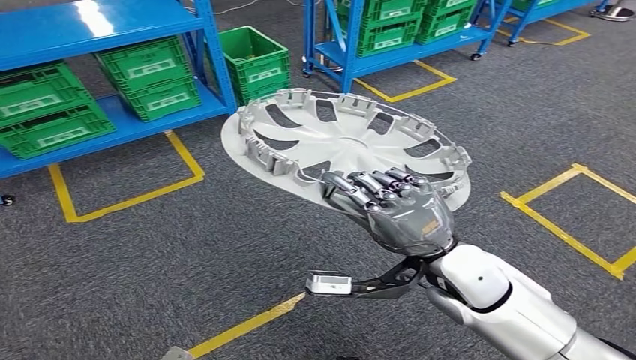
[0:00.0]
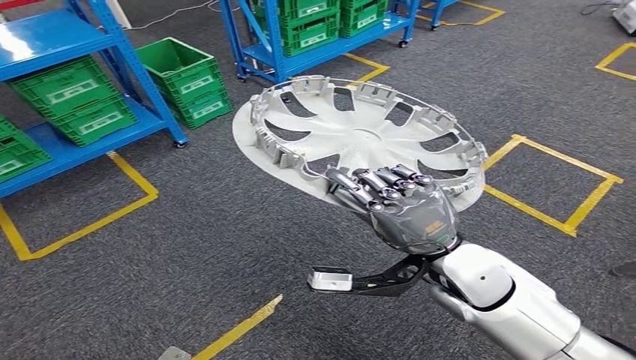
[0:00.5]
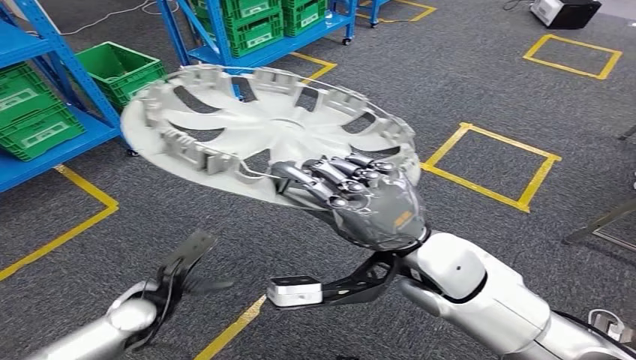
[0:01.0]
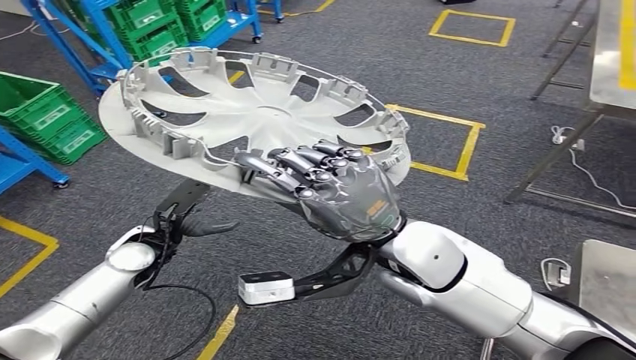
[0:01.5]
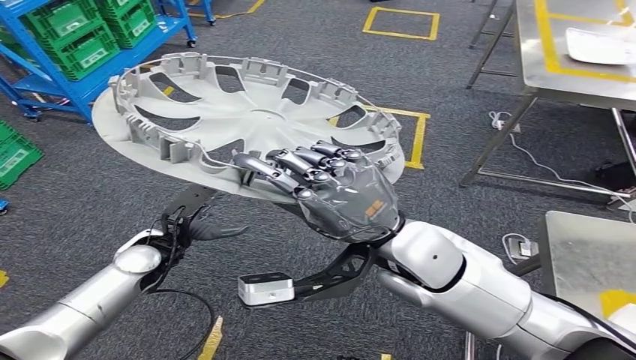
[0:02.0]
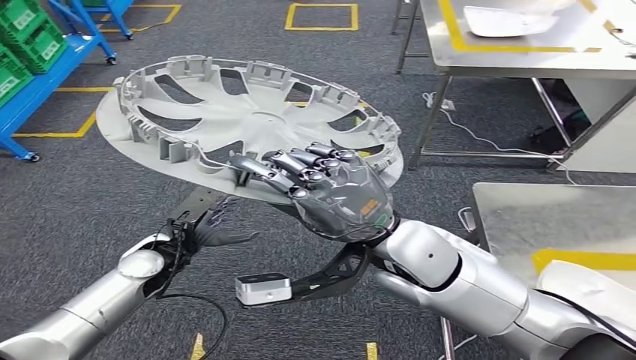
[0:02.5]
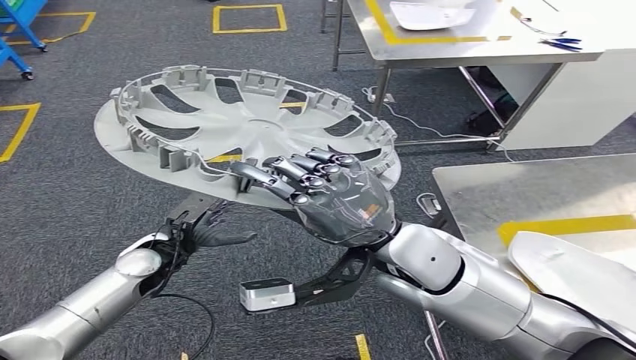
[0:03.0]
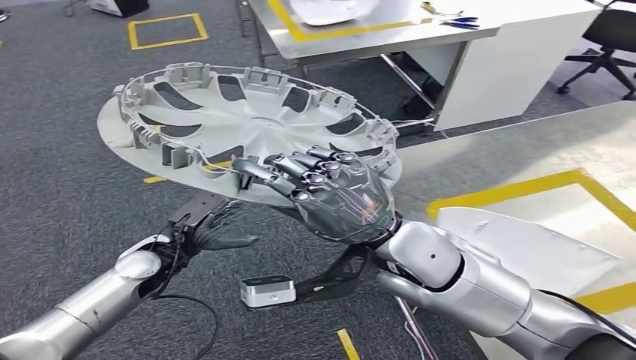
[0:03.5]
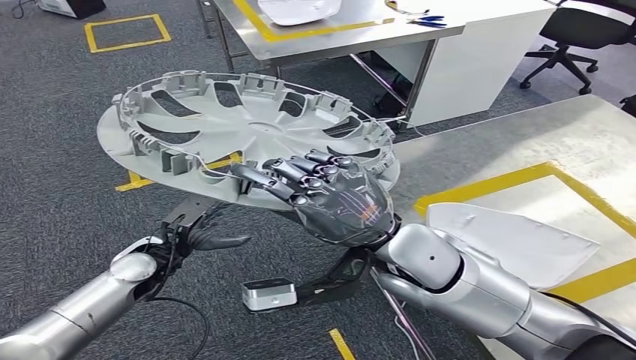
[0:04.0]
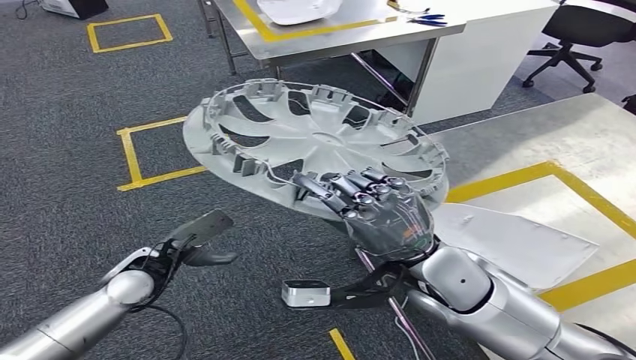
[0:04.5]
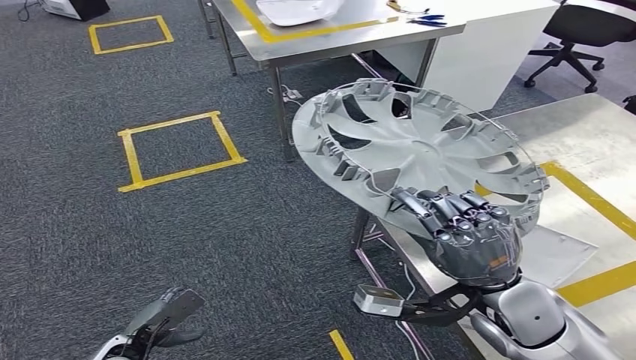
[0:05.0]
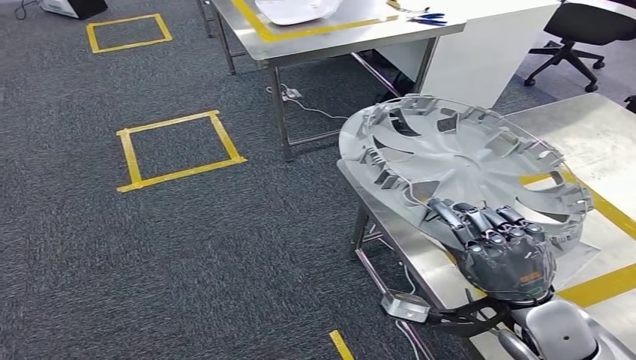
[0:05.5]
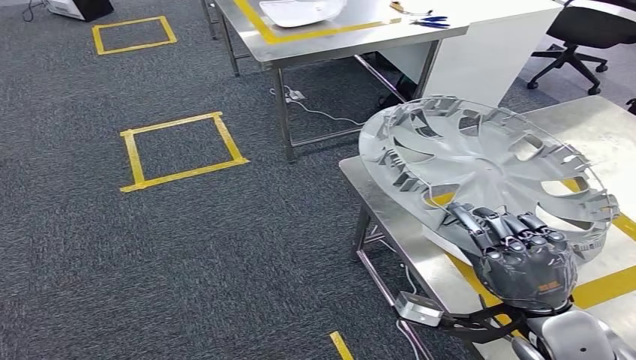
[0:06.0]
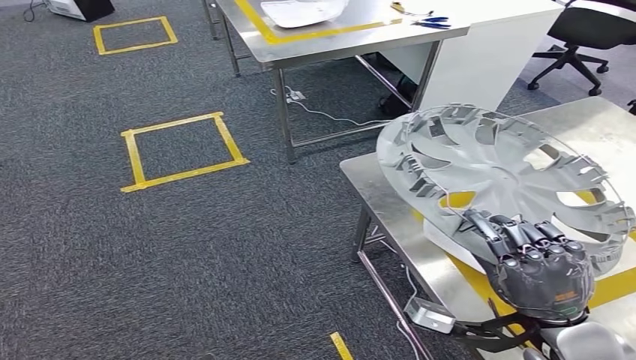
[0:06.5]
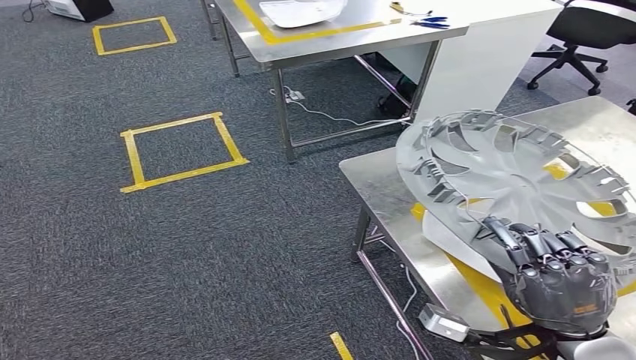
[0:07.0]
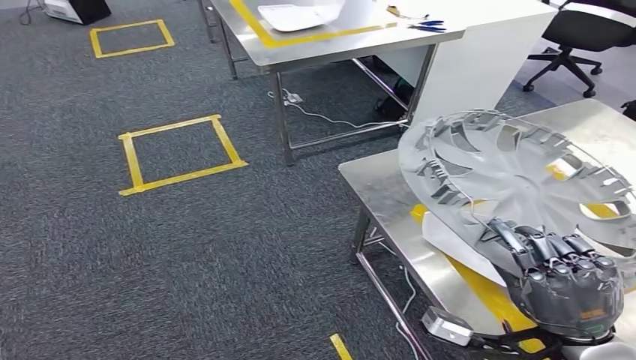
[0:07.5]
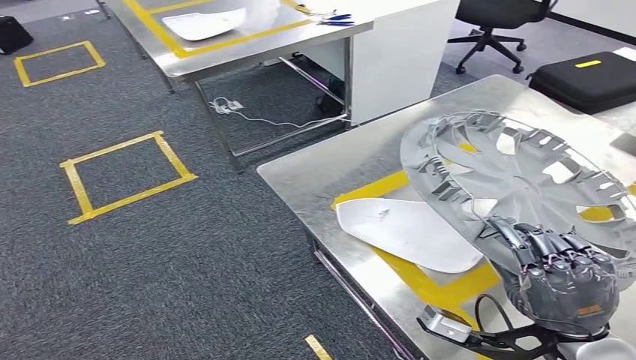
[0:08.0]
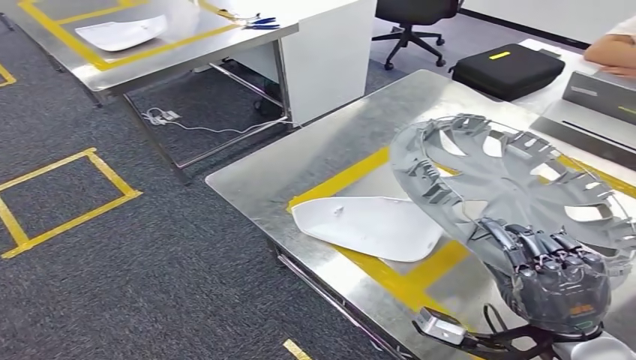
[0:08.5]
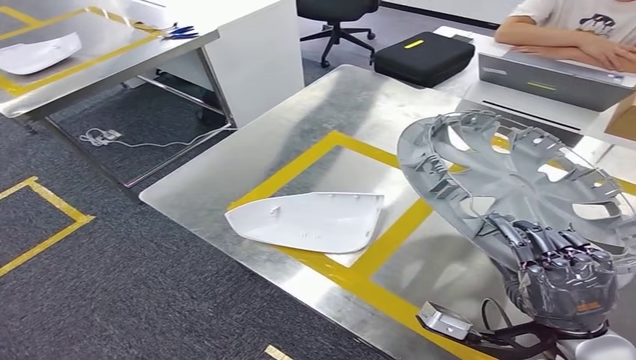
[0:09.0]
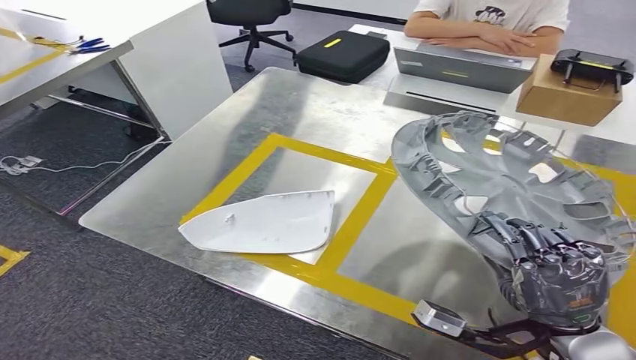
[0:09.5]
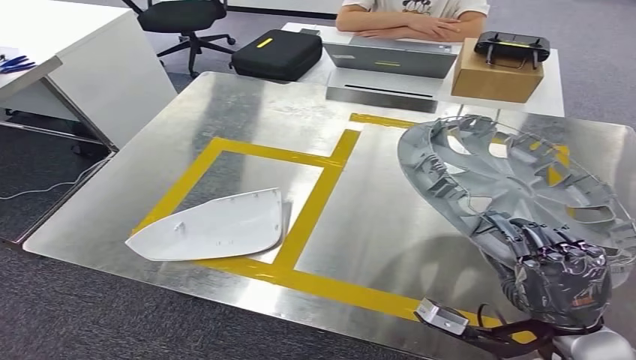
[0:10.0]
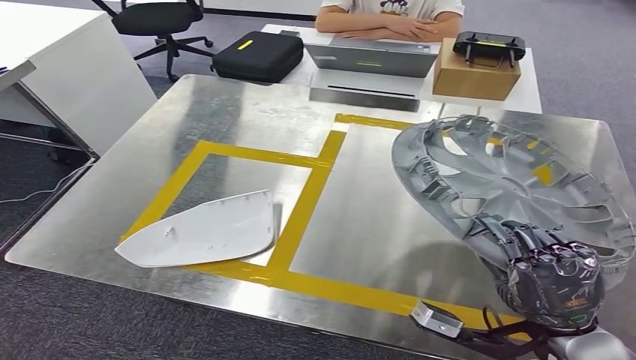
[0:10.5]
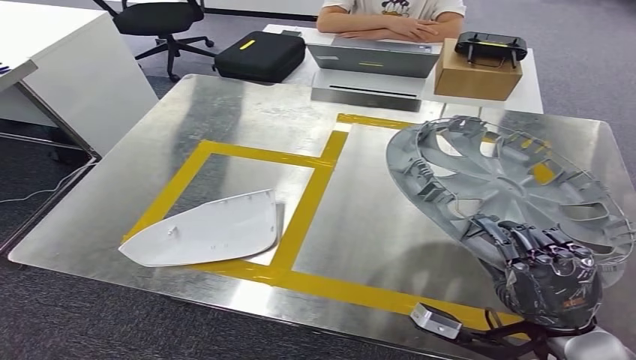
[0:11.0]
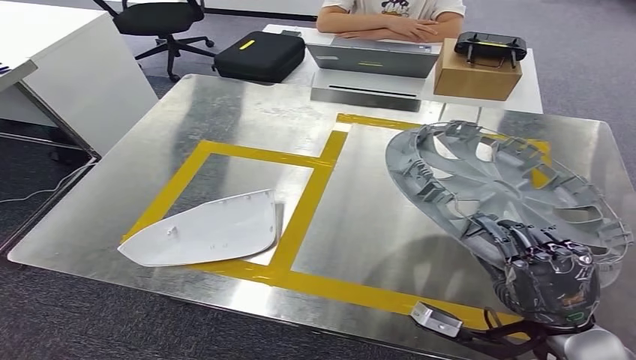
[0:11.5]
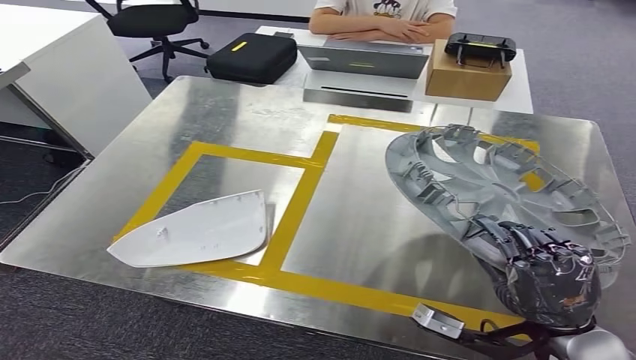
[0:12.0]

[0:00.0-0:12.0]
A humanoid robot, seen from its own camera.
Step, 0:00.0 to 0:06.0: Move the small component to the workbench.

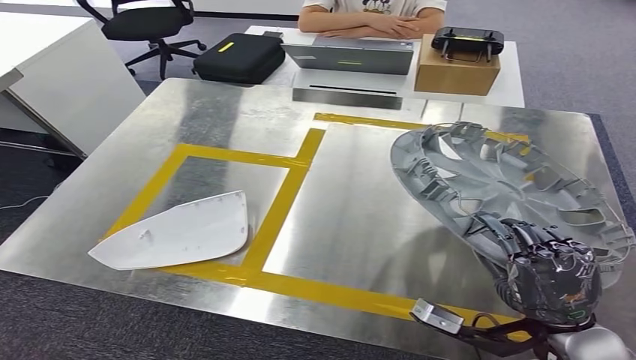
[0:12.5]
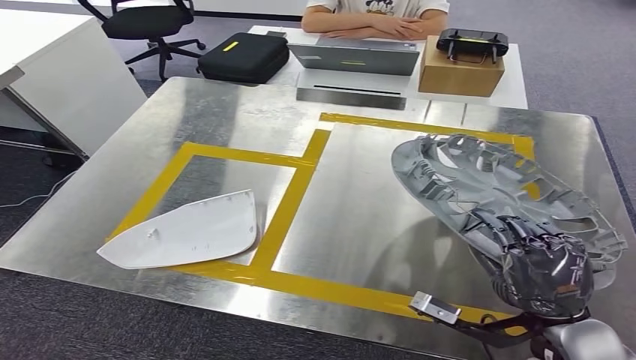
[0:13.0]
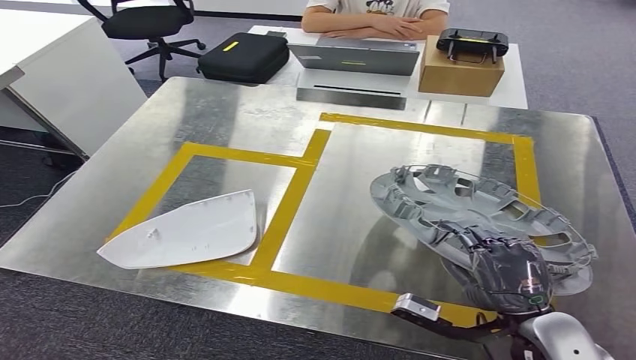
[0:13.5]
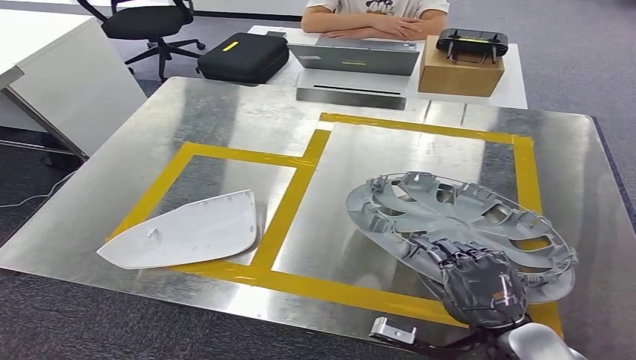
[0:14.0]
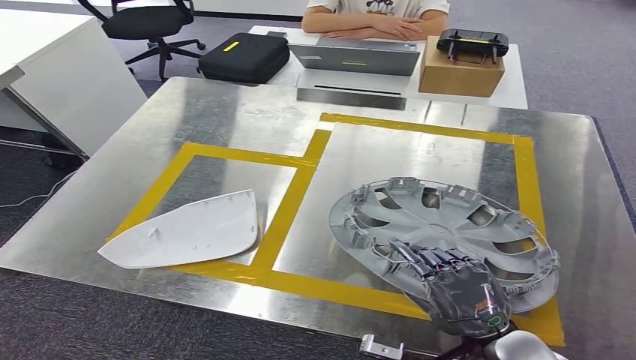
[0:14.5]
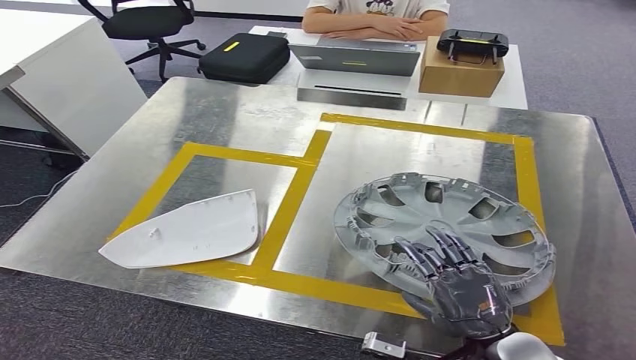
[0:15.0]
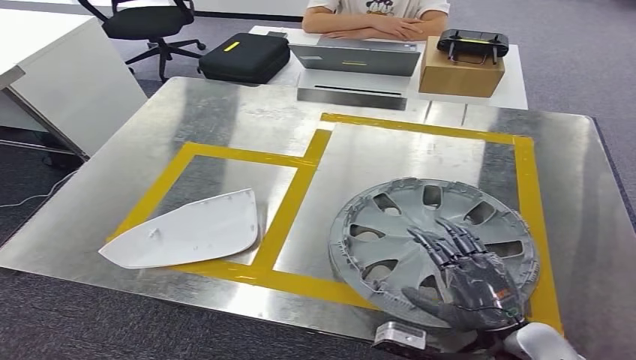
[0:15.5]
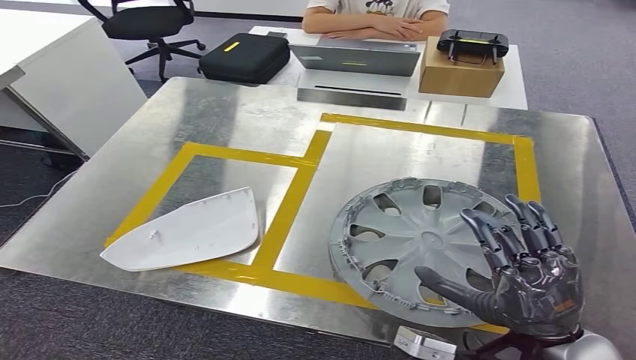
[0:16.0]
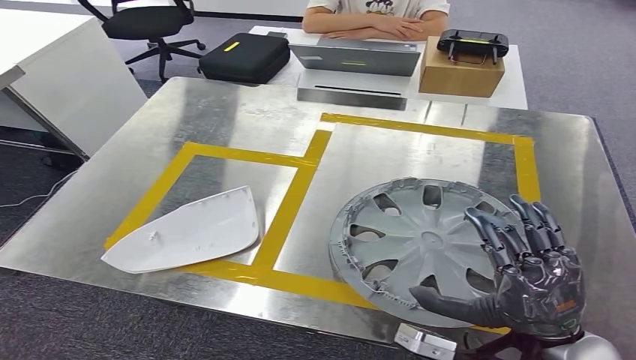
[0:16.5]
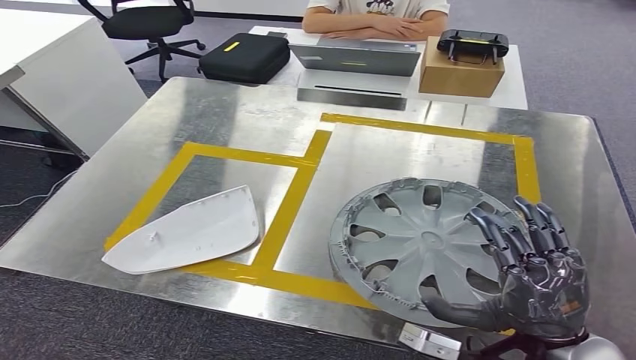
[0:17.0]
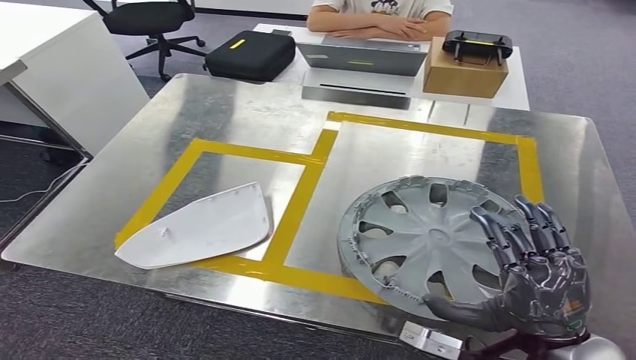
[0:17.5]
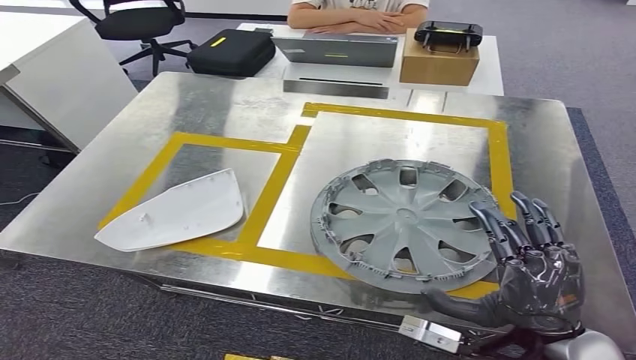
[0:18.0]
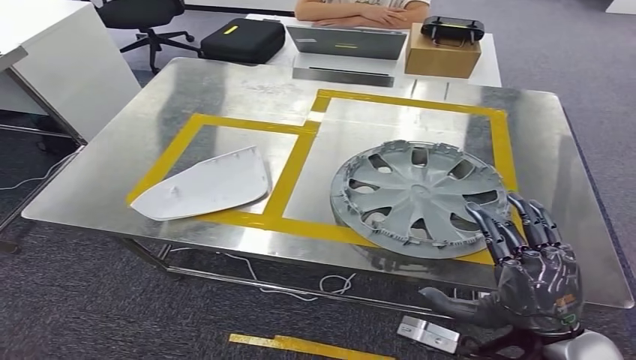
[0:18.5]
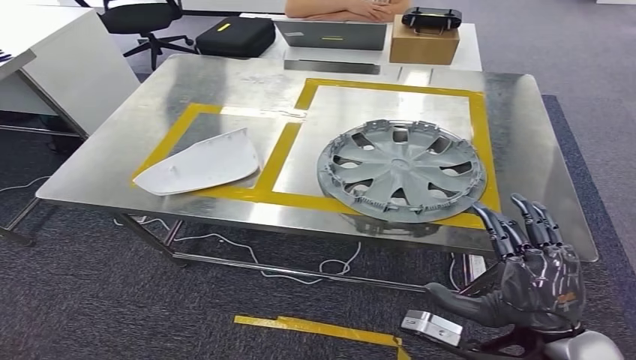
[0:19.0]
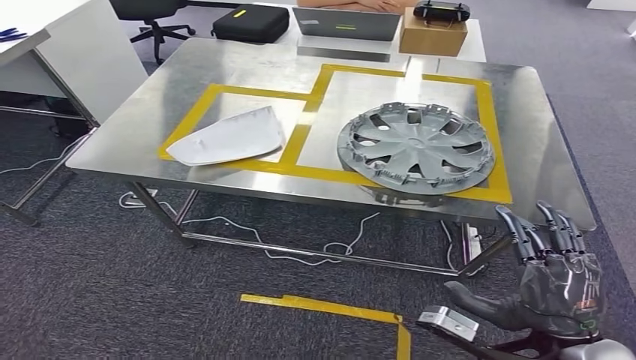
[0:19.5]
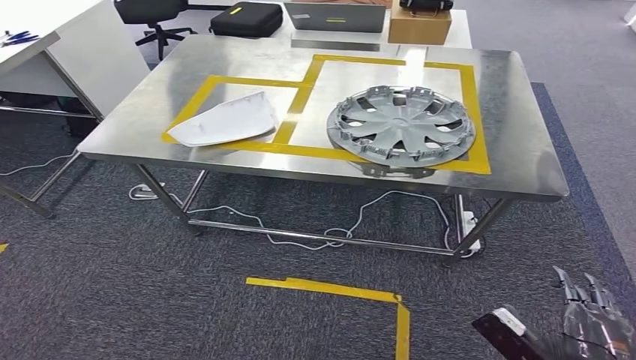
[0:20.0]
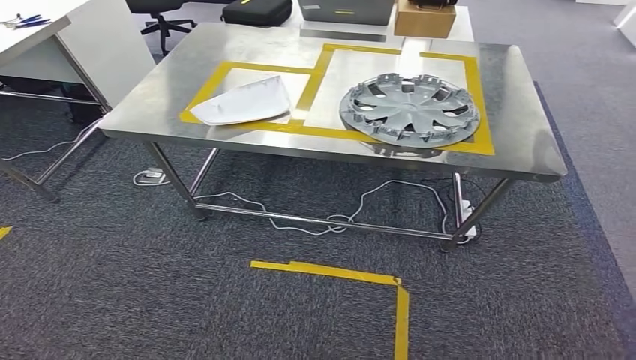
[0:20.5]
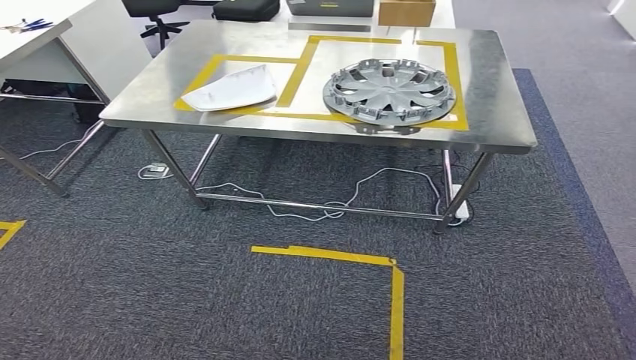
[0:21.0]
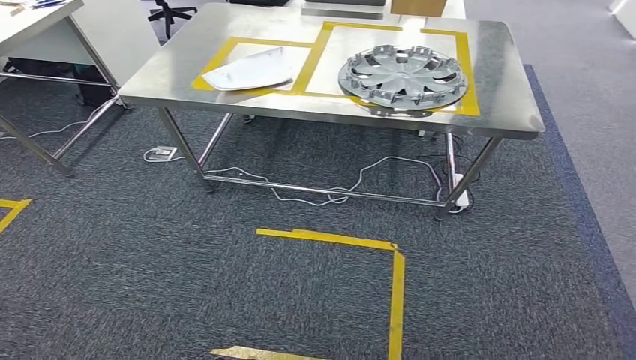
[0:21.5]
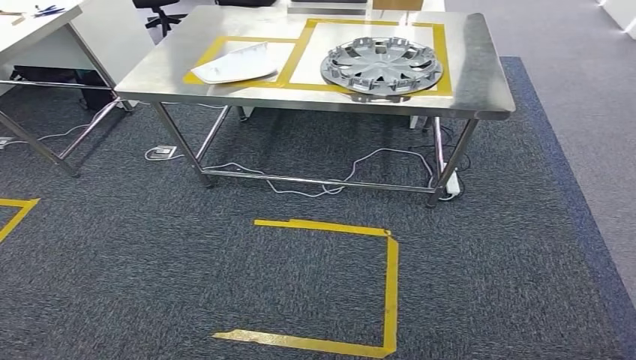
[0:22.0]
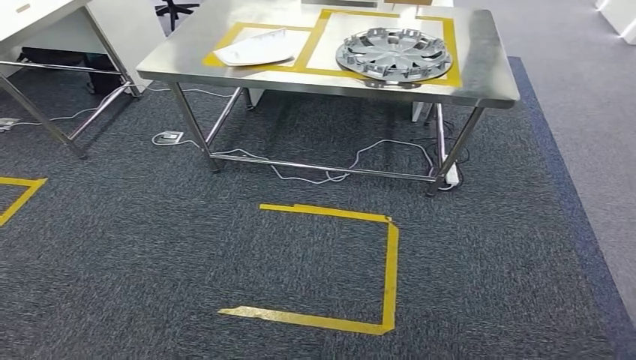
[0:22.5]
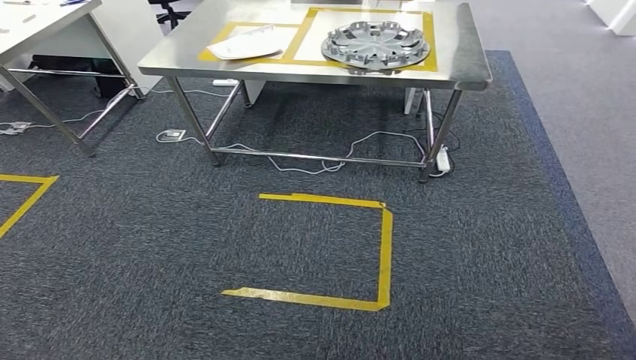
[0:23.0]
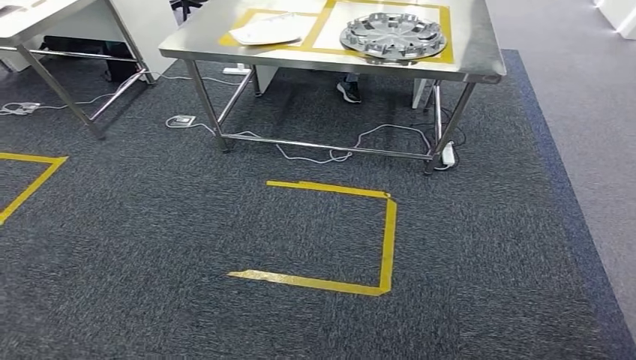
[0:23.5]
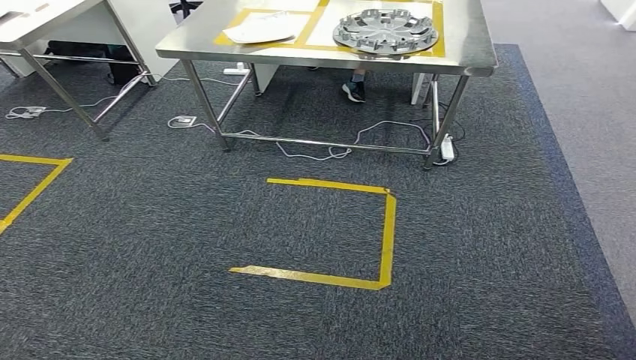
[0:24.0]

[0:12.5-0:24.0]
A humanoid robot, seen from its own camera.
Step, 0:12.5 to 0:18.5: Insert the small component into the corresponding slot on the workbench.
0:14.5 to 0:16.5: The right hand travels upward by about 5 cm.
